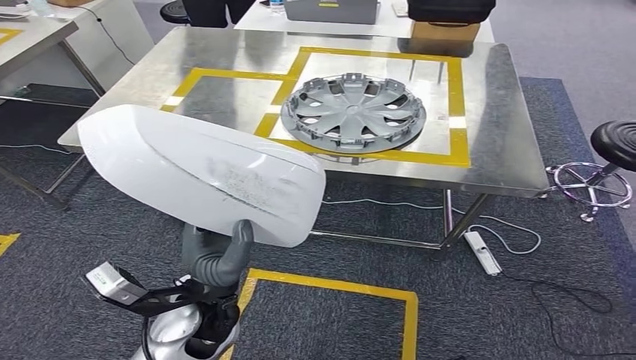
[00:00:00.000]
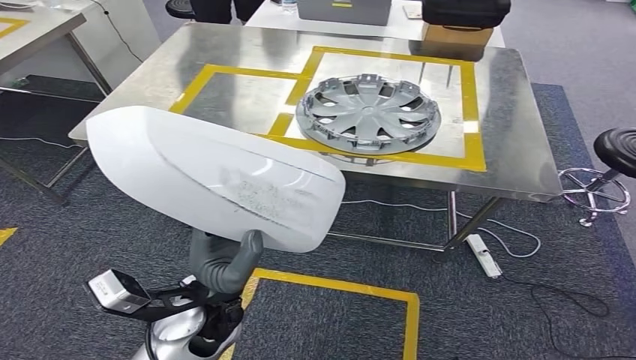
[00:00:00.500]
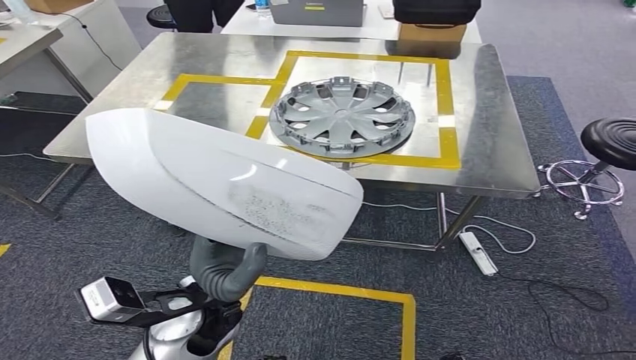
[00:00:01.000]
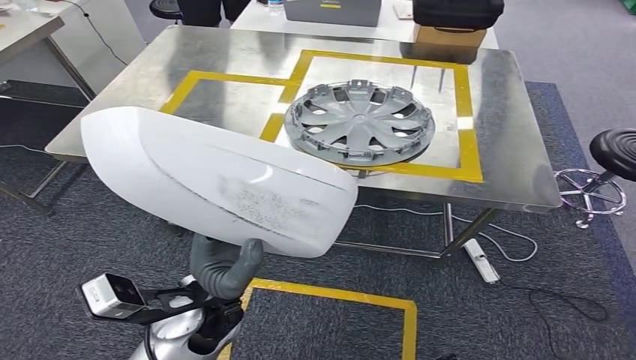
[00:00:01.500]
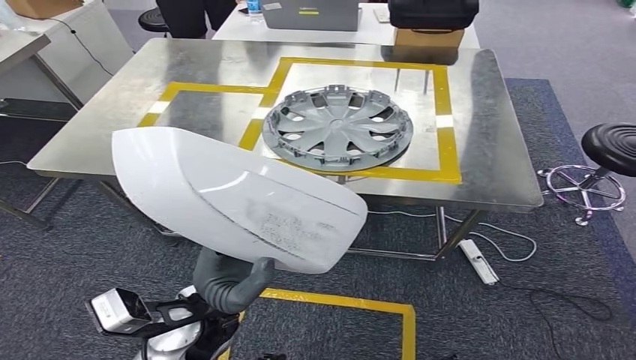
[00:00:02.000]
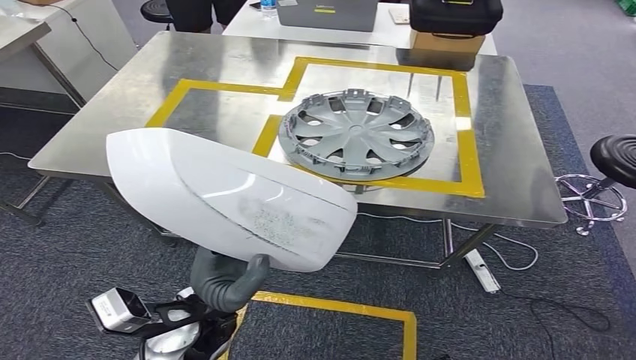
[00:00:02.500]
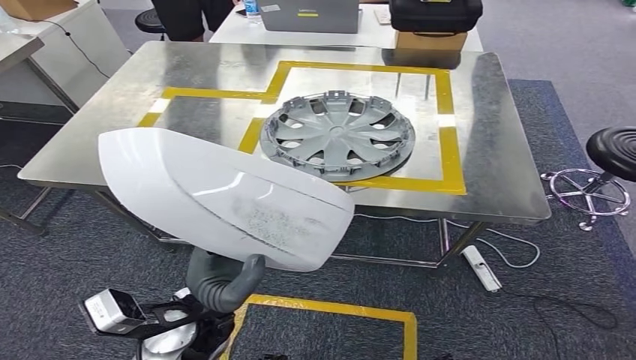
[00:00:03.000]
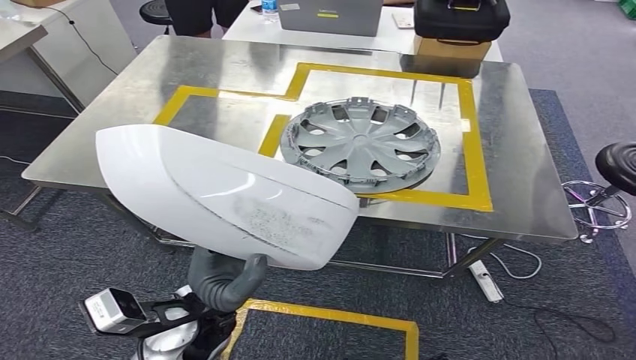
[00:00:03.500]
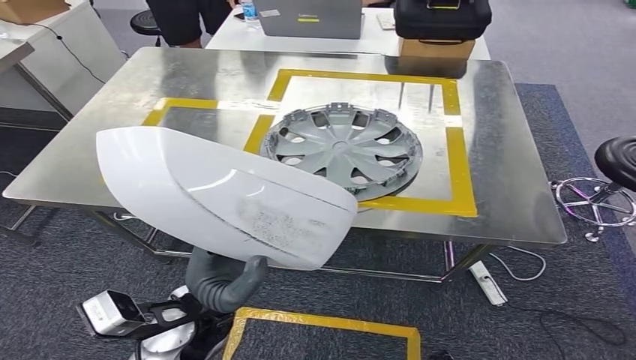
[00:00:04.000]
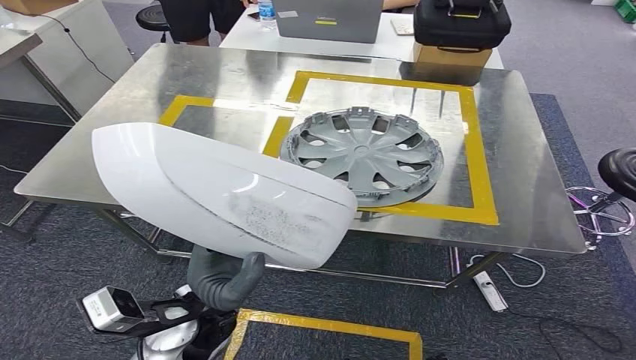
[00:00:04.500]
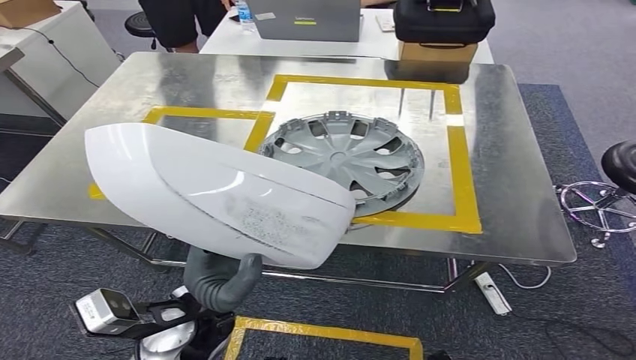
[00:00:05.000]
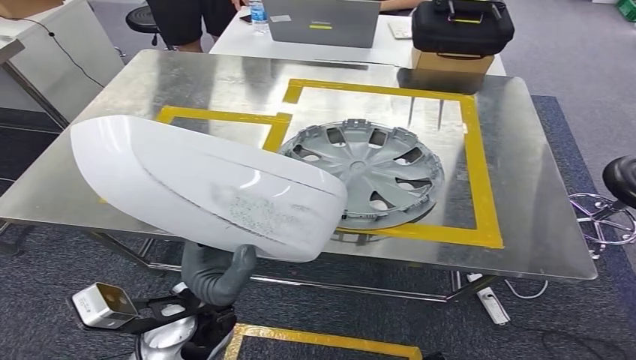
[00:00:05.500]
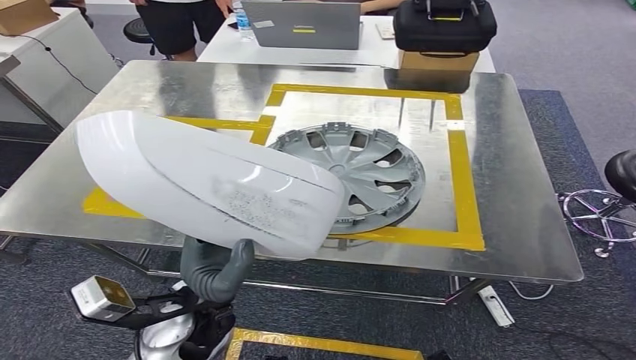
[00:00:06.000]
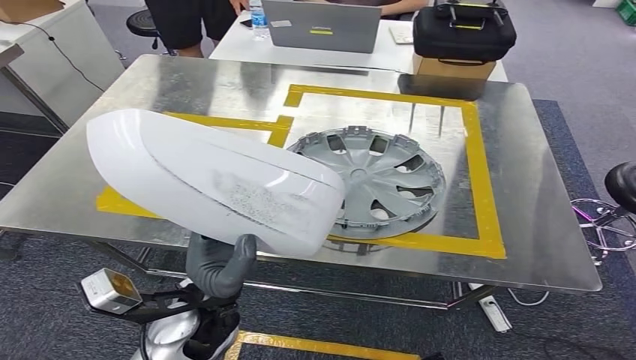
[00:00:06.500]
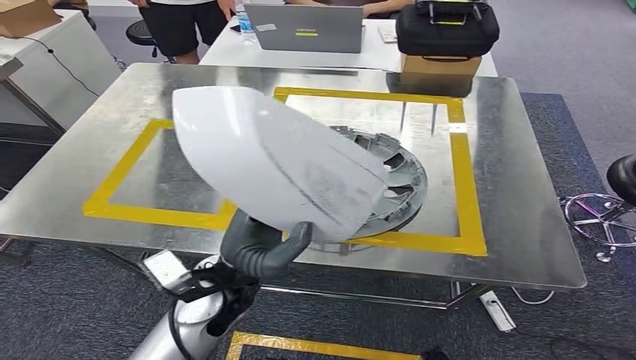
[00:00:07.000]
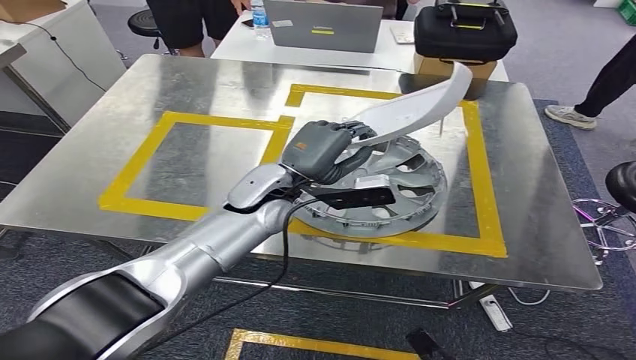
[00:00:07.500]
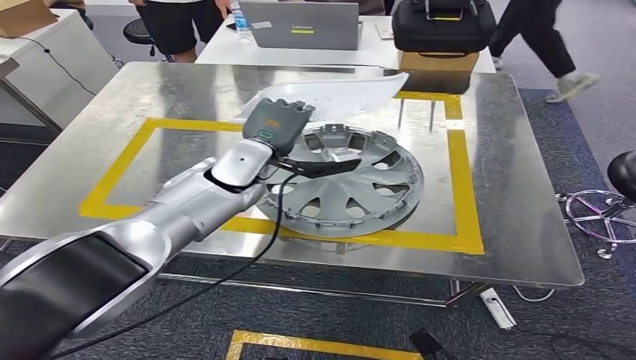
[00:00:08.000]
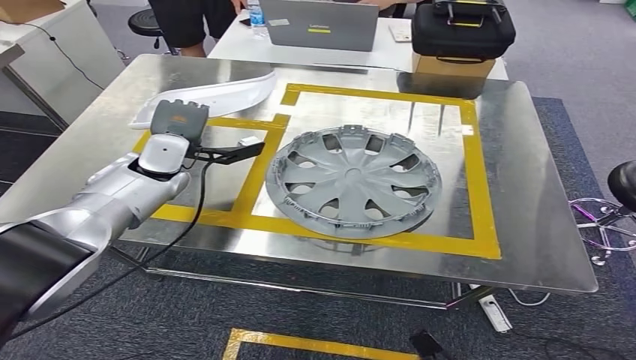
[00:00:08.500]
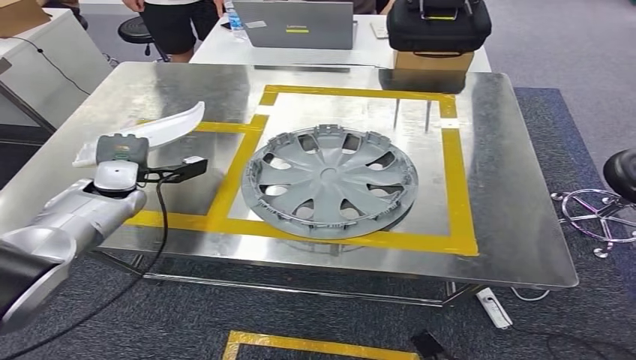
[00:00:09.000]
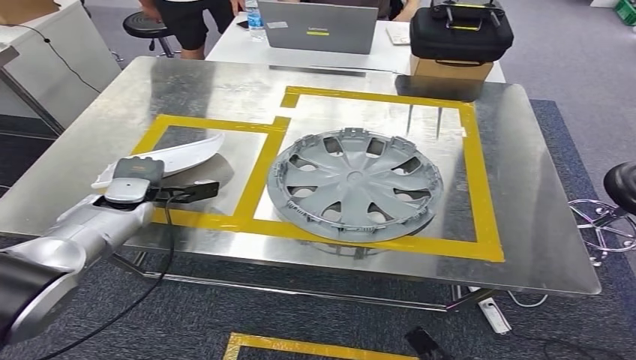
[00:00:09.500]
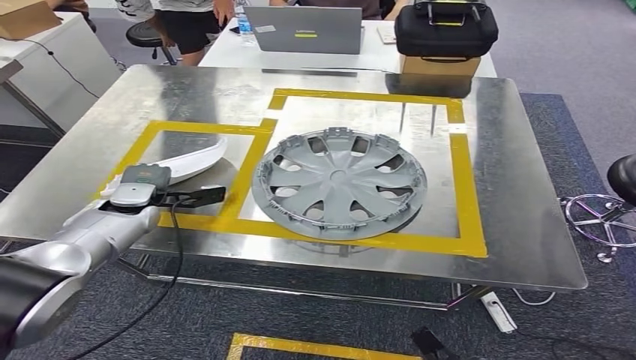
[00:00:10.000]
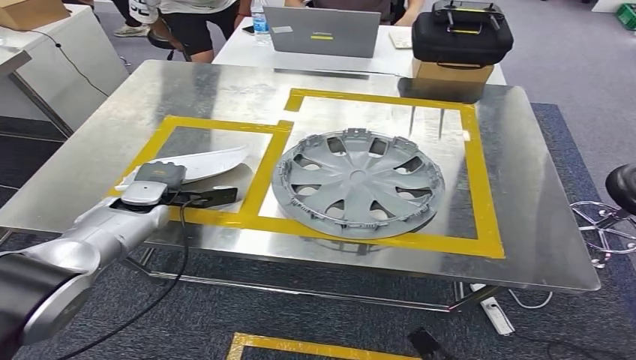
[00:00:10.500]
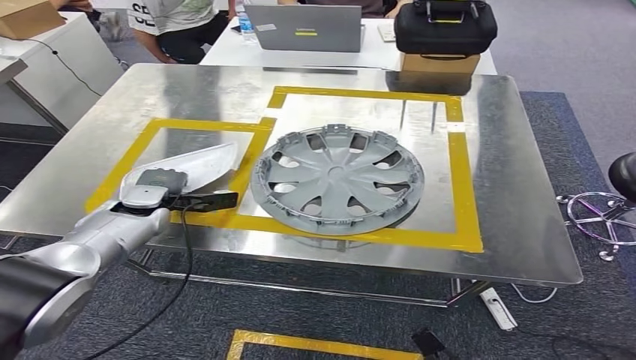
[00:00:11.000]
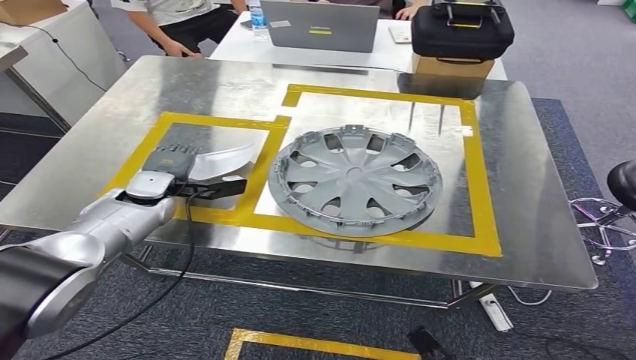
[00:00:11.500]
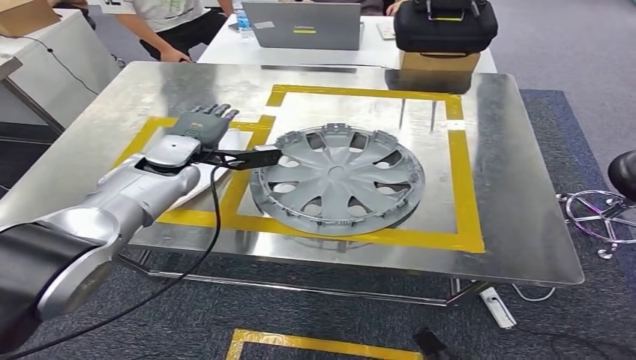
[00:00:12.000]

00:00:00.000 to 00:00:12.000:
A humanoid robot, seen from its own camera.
Step, 00:00:00.000 to 00:00:07.000: Move the small parts to the workbench.

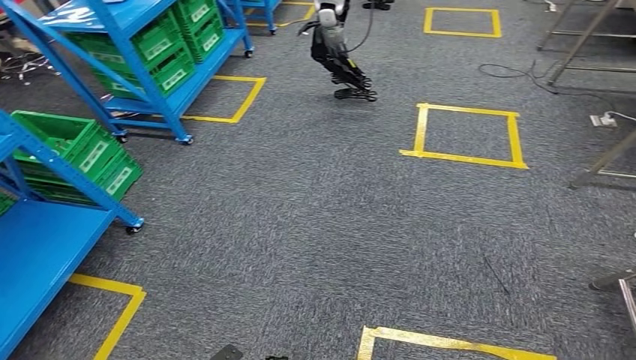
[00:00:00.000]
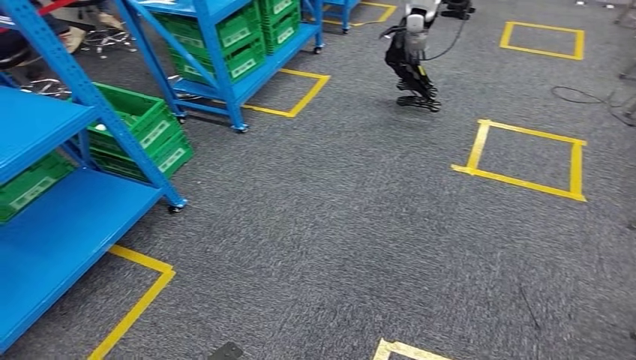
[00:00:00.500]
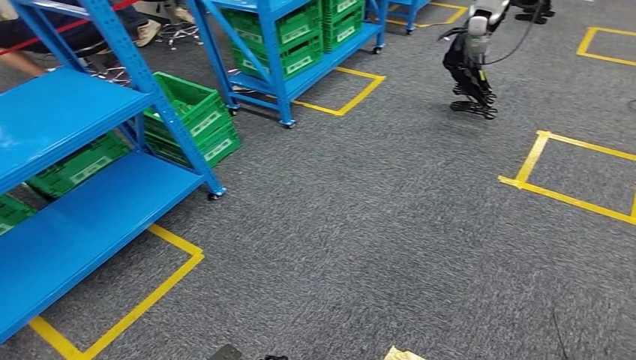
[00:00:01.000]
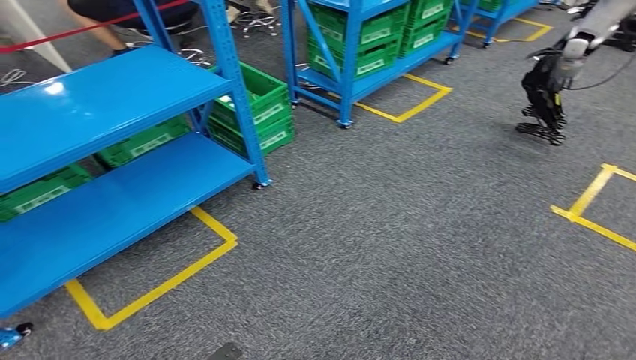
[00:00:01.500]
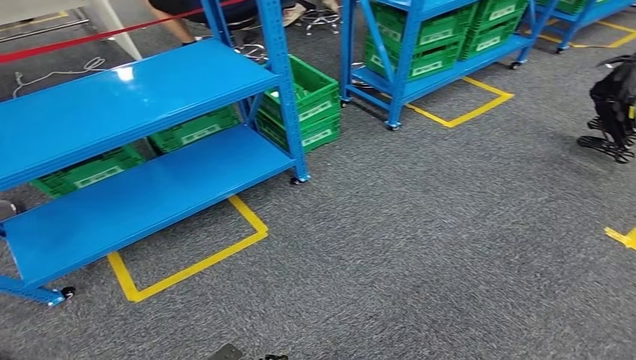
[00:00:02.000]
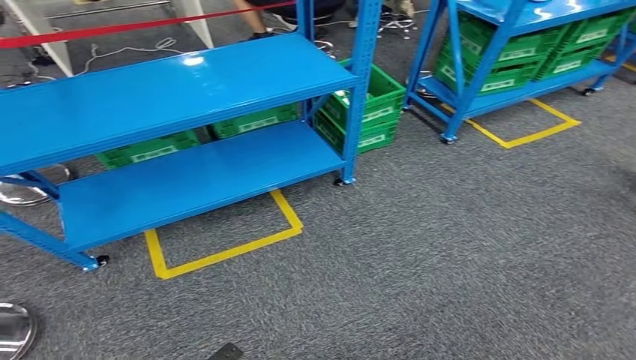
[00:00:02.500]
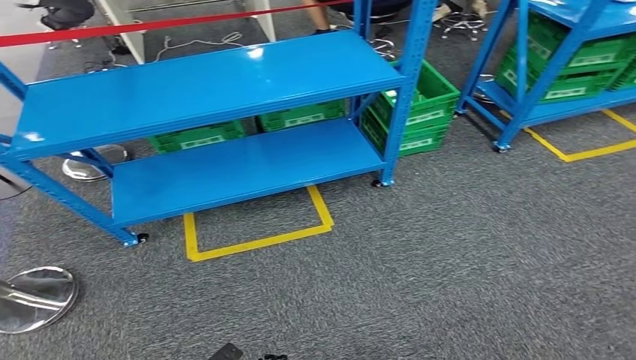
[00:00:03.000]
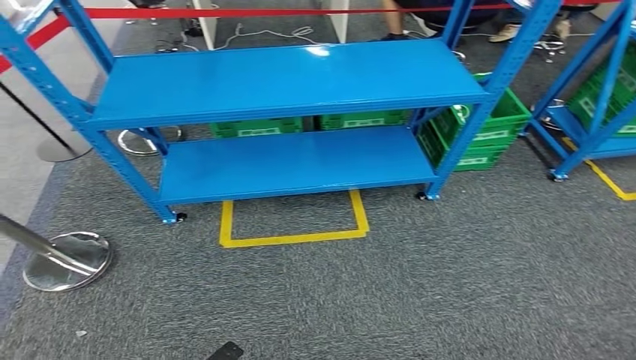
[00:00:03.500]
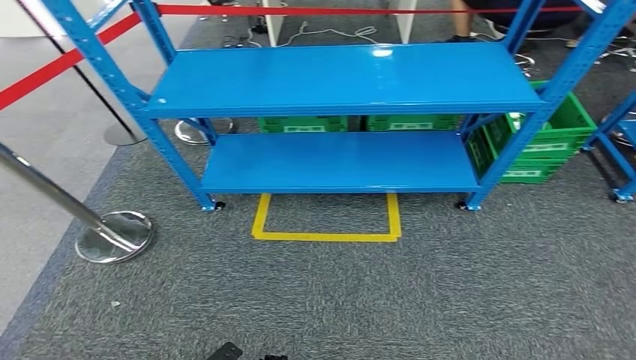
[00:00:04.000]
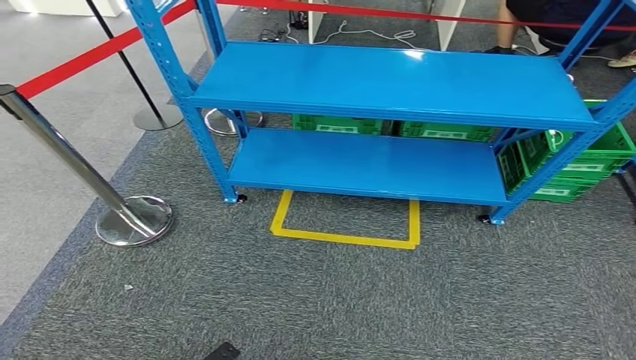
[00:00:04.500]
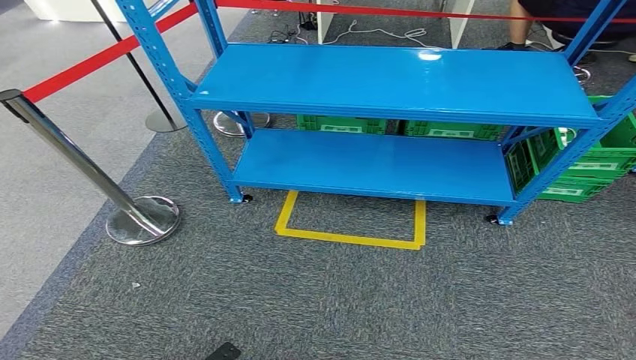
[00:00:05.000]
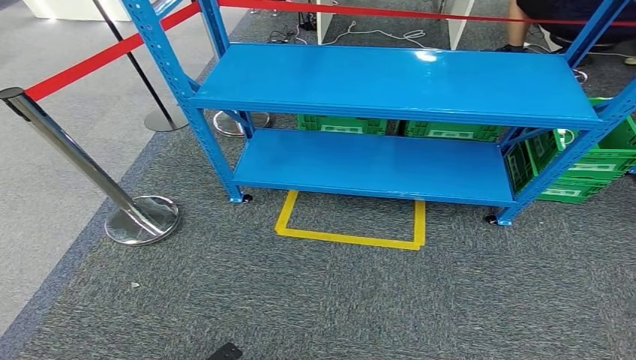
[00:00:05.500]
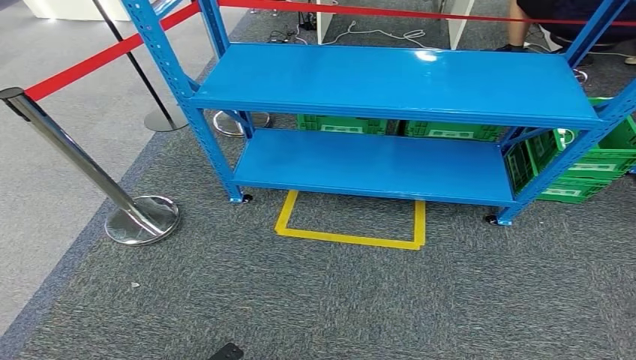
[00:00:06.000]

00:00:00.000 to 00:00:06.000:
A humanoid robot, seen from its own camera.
Step, 00:00:00.000 to 00:00:06.000: Return to the initial position at the workbench.
